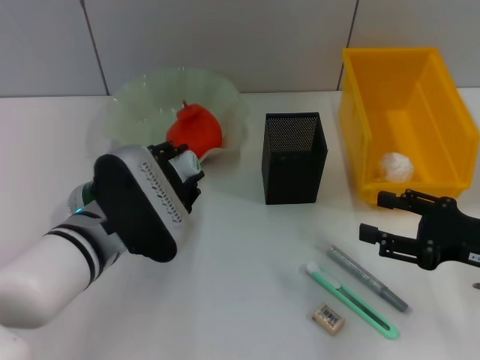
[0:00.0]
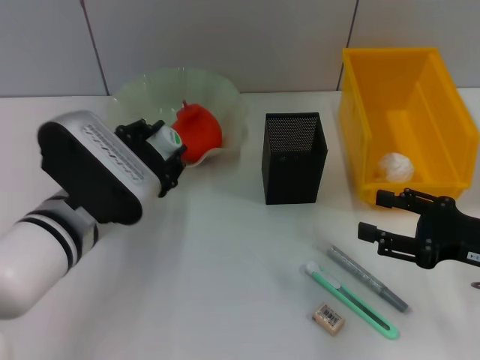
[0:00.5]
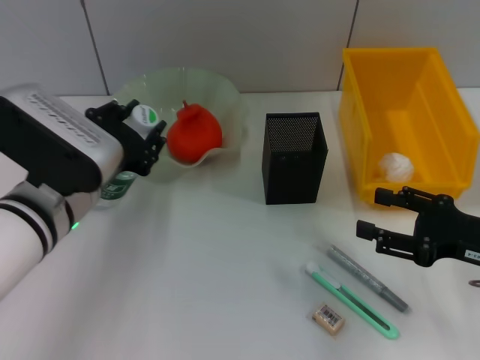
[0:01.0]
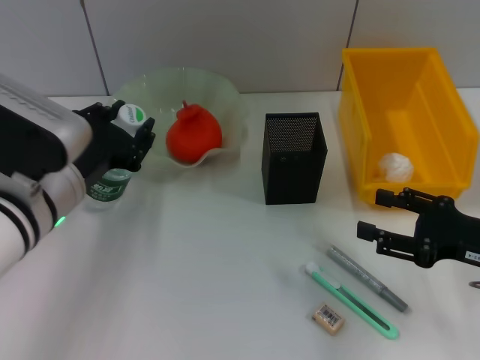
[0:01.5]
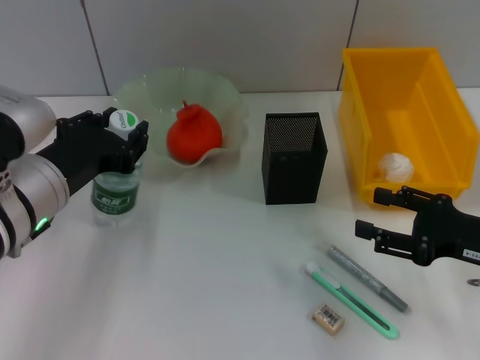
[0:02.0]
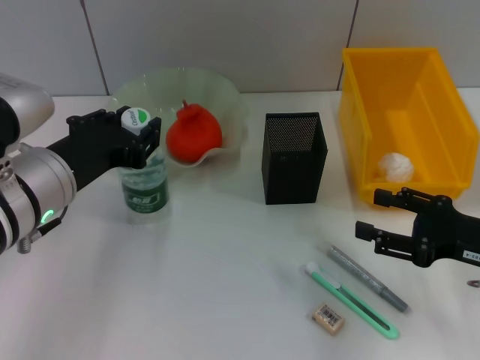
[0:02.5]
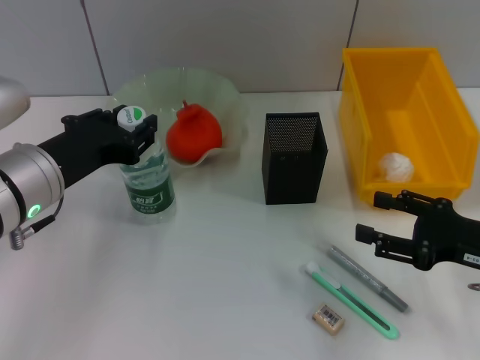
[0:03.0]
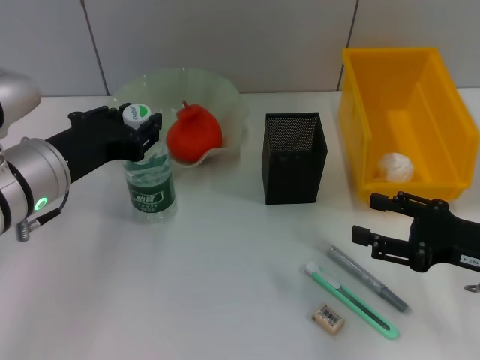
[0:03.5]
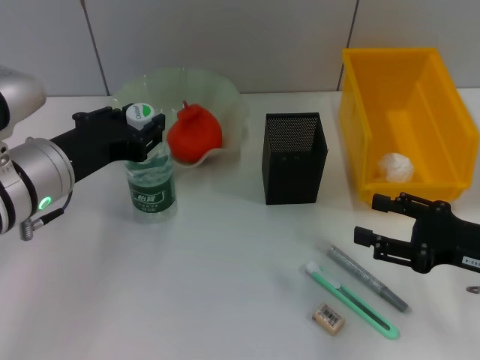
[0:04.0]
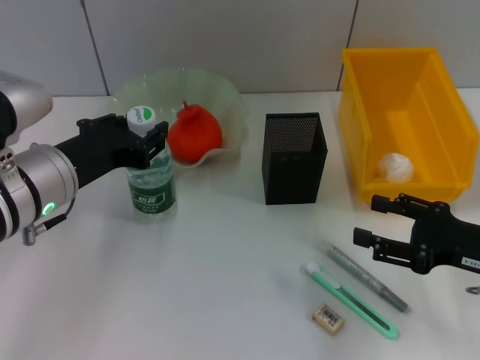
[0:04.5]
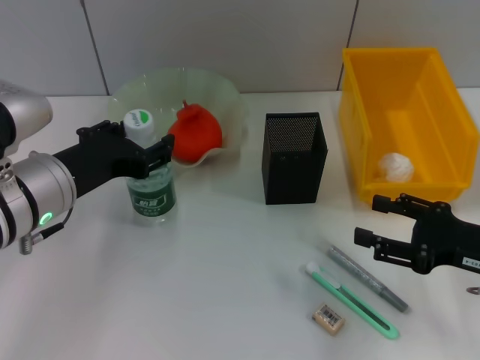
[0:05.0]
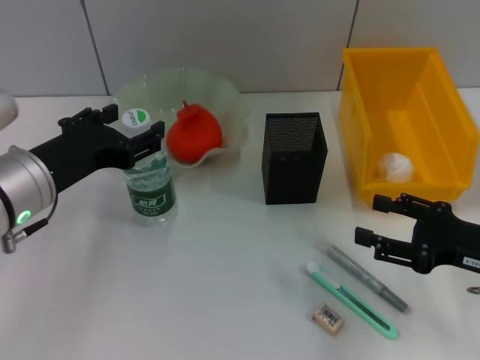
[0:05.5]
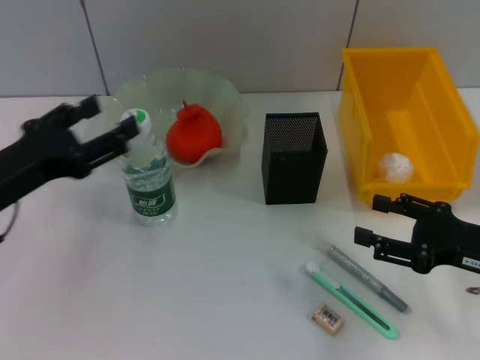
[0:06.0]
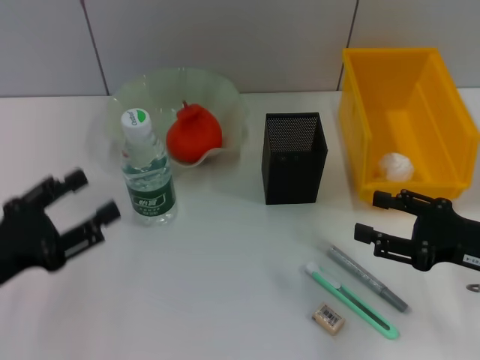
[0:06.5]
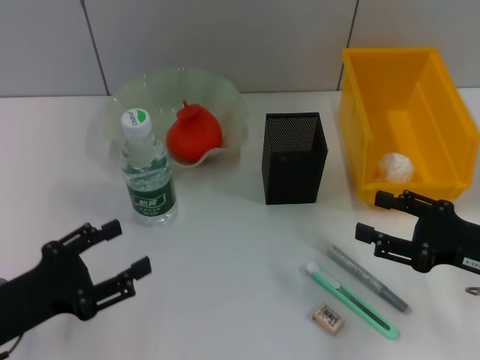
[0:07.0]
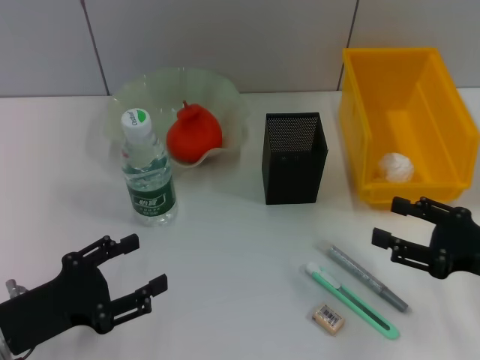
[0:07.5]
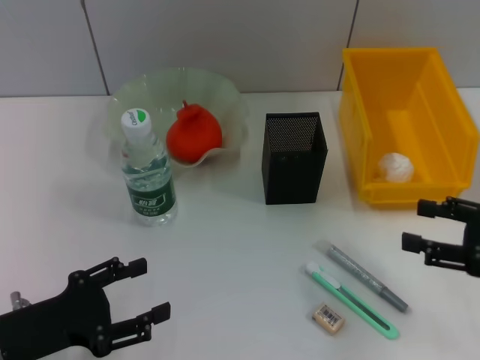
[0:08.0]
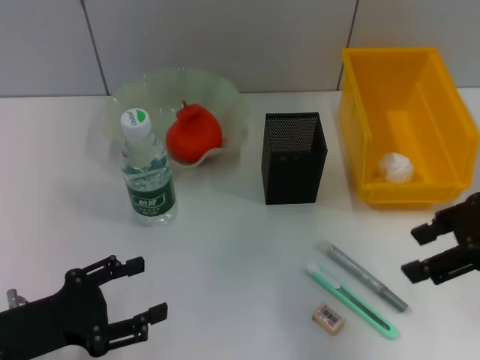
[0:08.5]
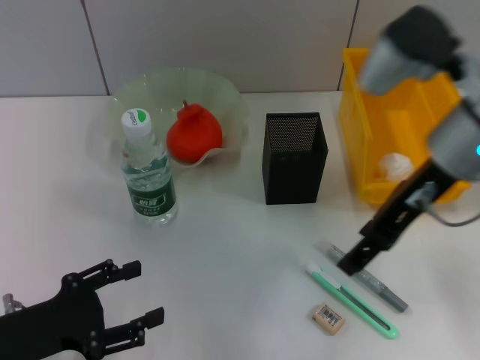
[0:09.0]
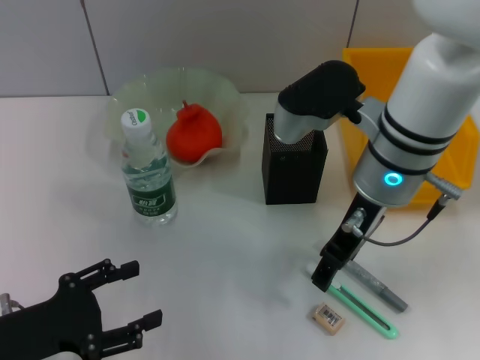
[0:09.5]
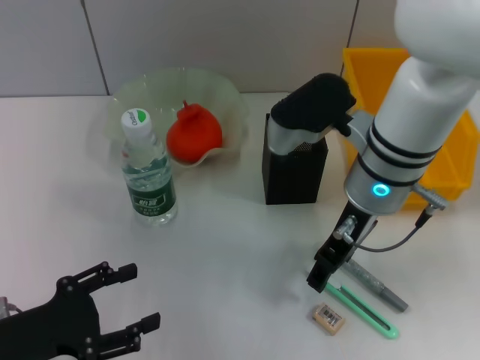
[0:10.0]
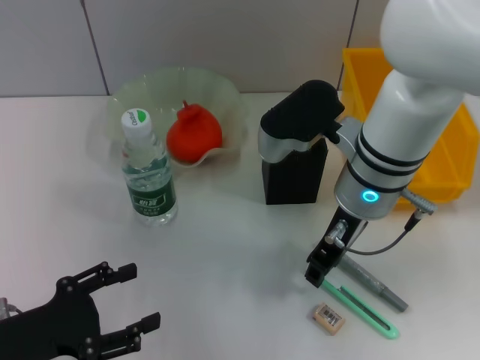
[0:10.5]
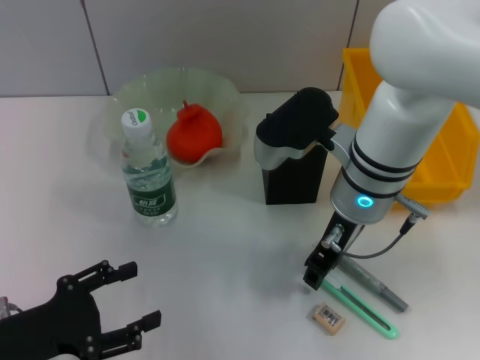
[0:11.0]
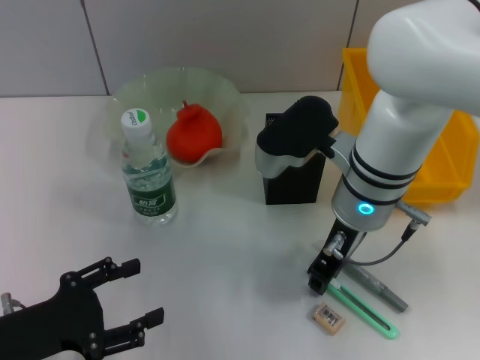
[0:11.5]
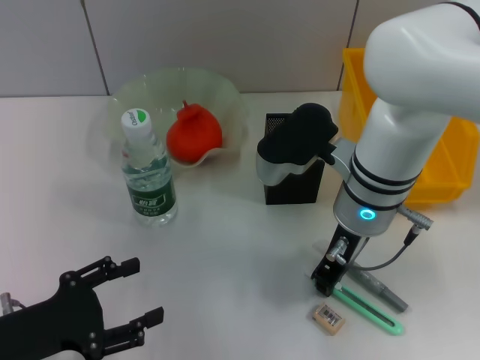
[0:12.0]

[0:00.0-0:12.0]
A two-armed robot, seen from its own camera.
Step, 0:00.0 to 0:05.0: Place the water bottle on the table with the left hand.
Step, 0:05.5 to 0:11.5: Grab the blue utility knife with the right hand.
0:00.0 to 0:02.0: The left gripper travels upward by approximately 5 cm.
0:02.0 to 0:04.0: The grippers move only a little.
0:04.0 to 0:06.0: The left gripper moves to the left, approximately 5 cm, and opens.
0:06.0 to 0:08.0: The right gripper ends up roughly 5 cm from where it was; the left gripper moves downward and backward, some 10 cm.
0:08.0 to 0:10.0: The right gripper shifts roughly 25 cm to the left and forward.
0:10.0 to 0:12.0: The right gripper closes.

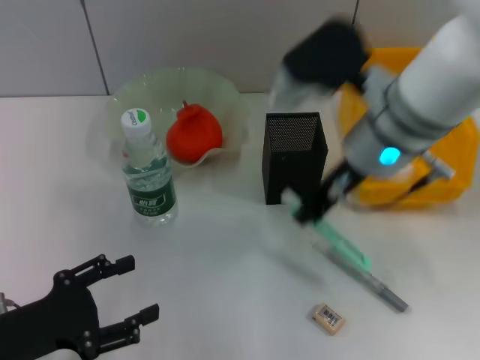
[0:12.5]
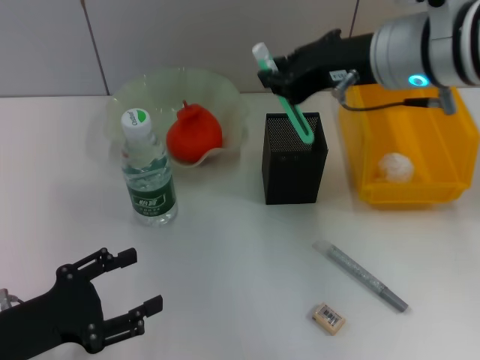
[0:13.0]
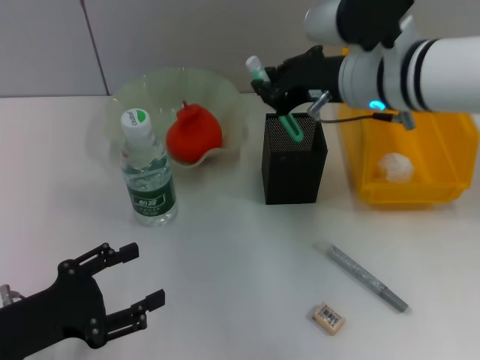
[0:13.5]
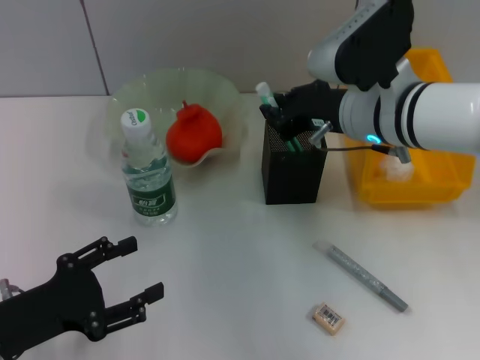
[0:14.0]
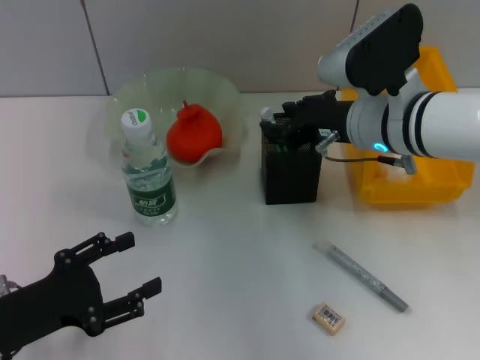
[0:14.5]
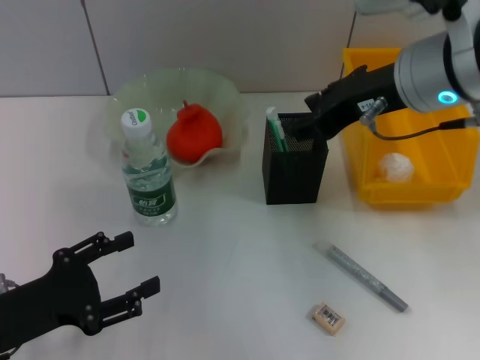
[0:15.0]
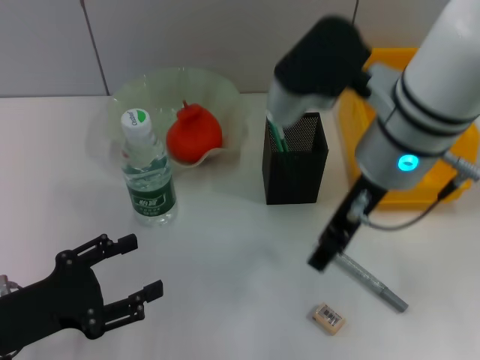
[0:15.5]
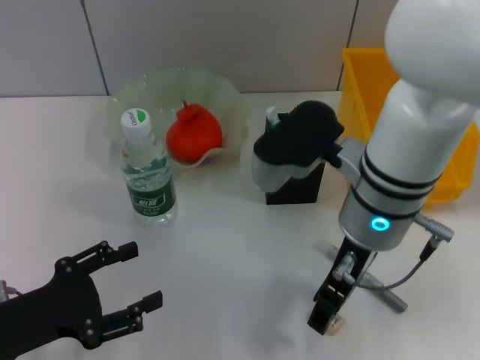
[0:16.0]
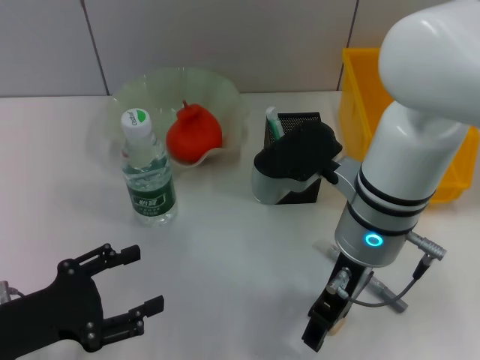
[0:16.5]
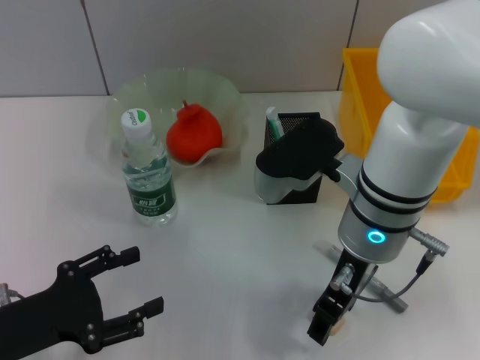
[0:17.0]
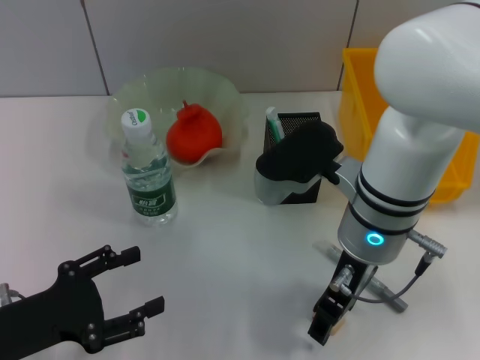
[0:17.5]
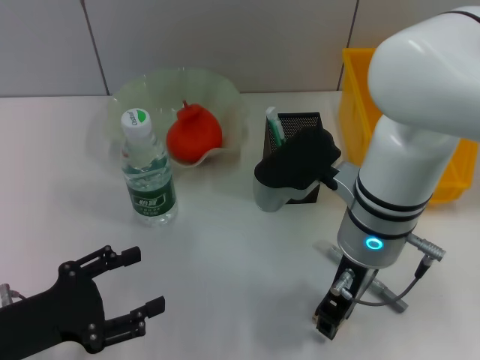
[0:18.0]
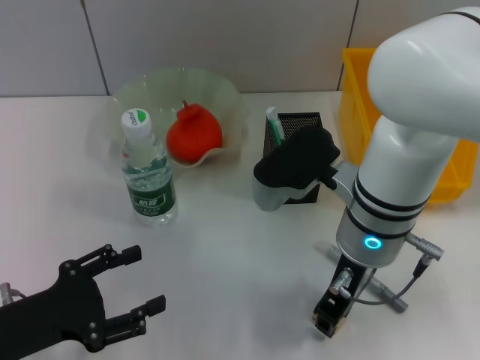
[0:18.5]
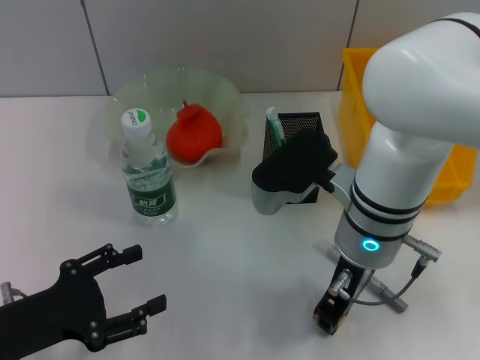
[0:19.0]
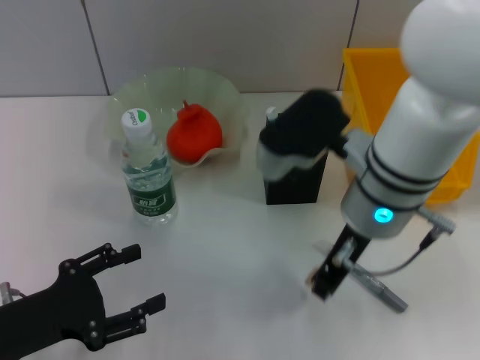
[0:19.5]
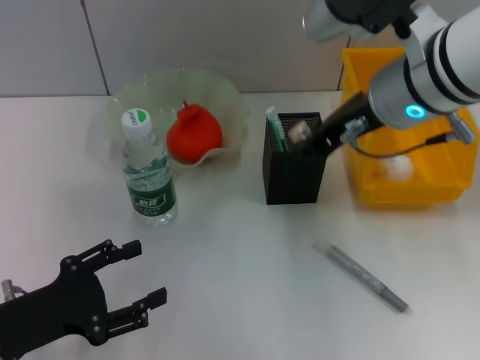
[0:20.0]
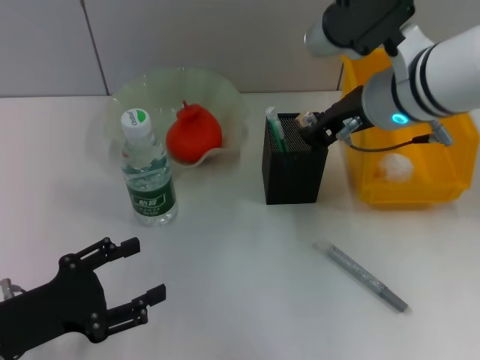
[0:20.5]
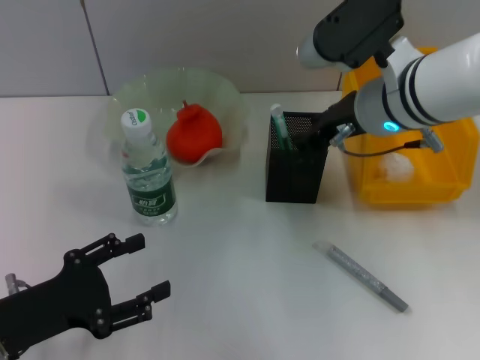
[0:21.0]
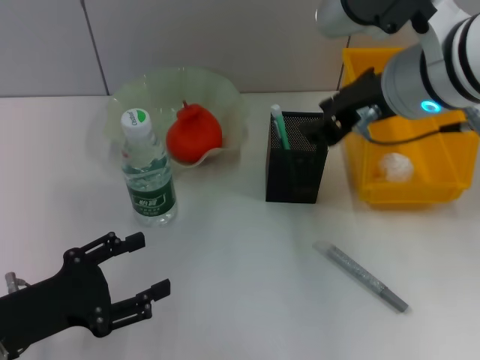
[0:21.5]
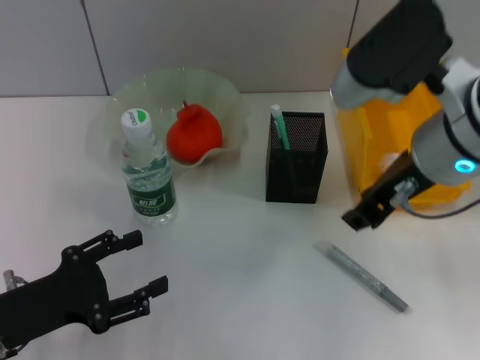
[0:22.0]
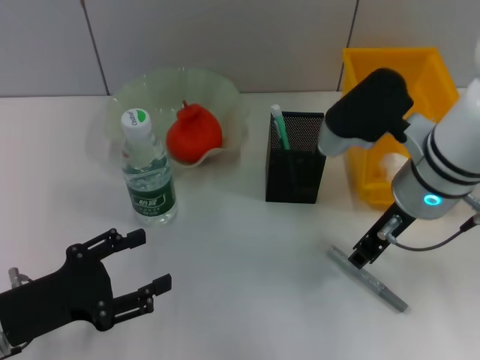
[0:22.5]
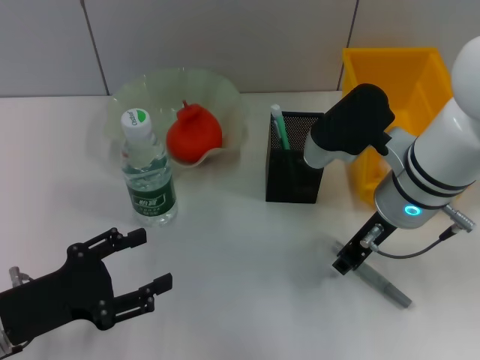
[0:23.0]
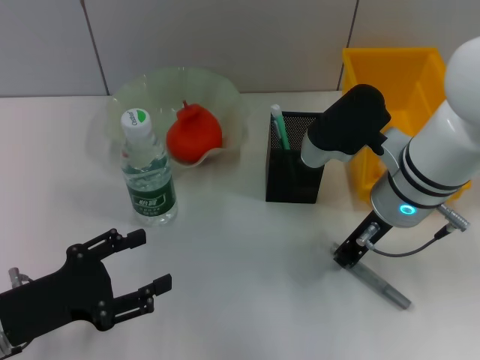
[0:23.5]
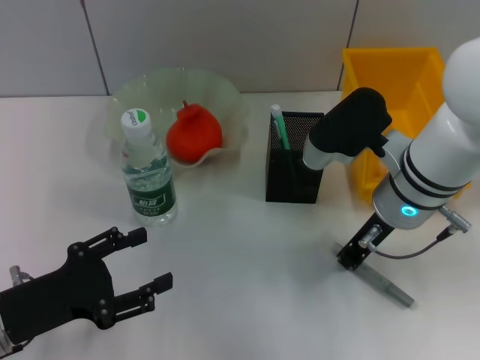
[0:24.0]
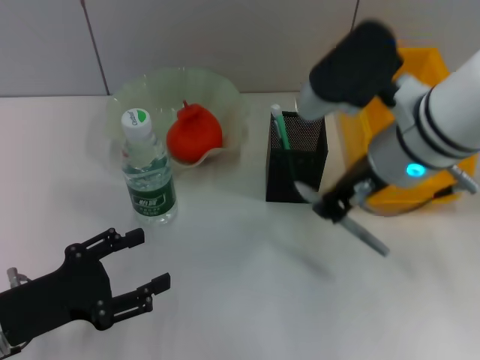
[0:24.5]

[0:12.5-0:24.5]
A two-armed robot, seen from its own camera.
Step, 0:12.5 to 0:14.5: Place the blue utility knife into the pen holder with the right hand.
Step, 0:15.0 to 0:18.5: Grab the eraser with the right hand.
Step, 0:19.0 to 0:21.0: Put the eraser into the pen holder with the right hand.
Step, 0:21.5 to 0:23.5: Grab the gray glue with the right hand.
0:12.5 to 0:14.5: The right gripper heads downward, covering about 5 cm.
0:14.5 to 0:16.5: The right gripper heads backward, covering some 5 cm, moves some 10 cm upward and comes back, and opens its fingers.
0:16.5 to 0:18.5: The right gripper closes its fingers.
0:18.5 to 0:20.5: The right gripper shifts about 10 cm forward and upward.
0:20.5 to 0:22.5: The right gripper moves some 5 cm.
0:22.5 to 0:24.5: The right gripper moves some 5 cm, and closes.

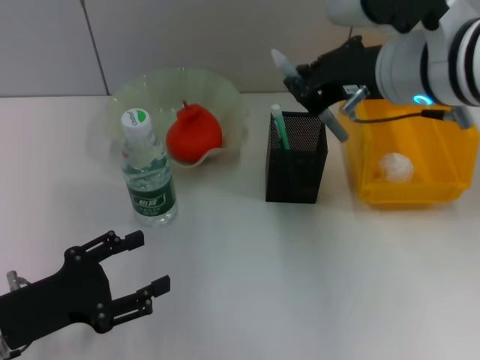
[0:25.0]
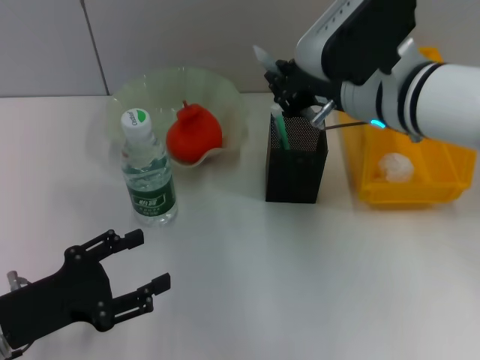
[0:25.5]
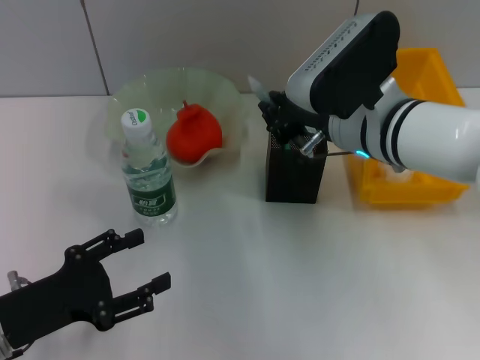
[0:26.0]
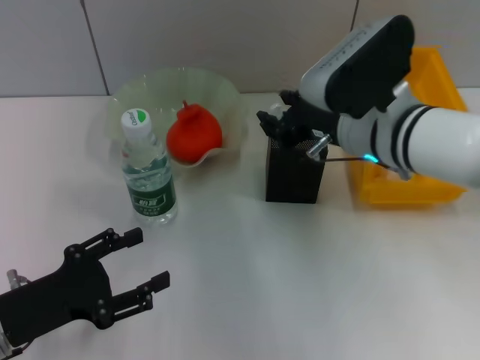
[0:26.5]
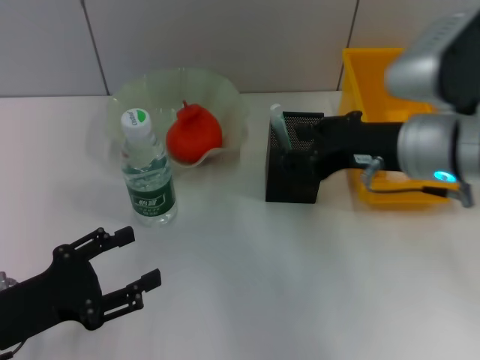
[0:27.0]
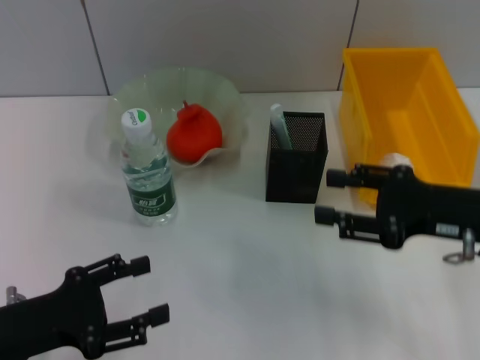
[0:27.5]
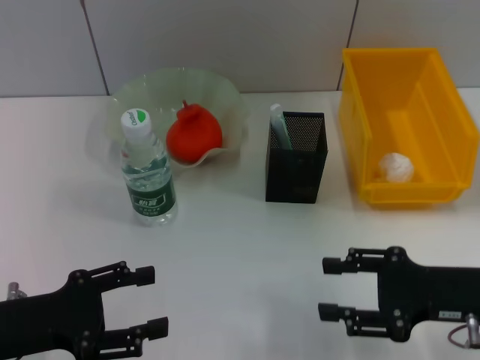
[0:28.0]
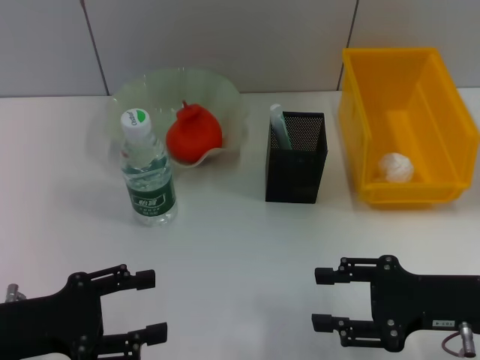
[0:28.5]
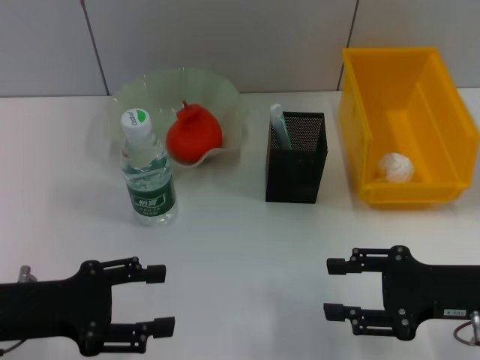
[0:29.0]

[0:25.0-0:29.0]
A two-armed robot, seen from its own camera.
Step, 0:25.0 to 0:26.5: Place the gray glue into the pen holder with the right hand.
0:25.0 to 0:27.0: The right gripper moves downward, about 5 cm, and opens up.
0:27.0 to 0:29.0: The right gripper goes roughly 15 cm downward, to the right and backward.
